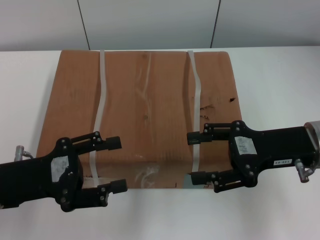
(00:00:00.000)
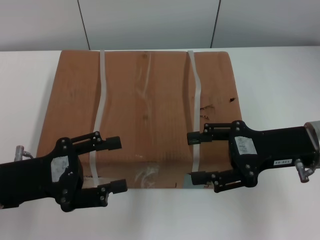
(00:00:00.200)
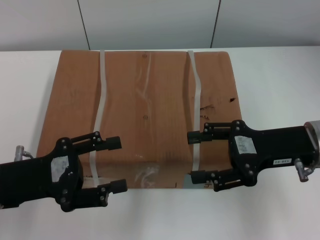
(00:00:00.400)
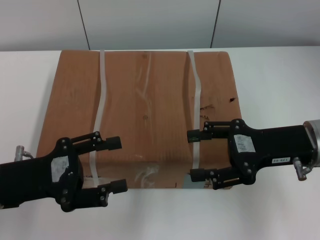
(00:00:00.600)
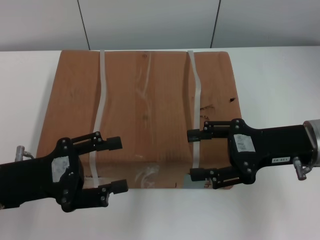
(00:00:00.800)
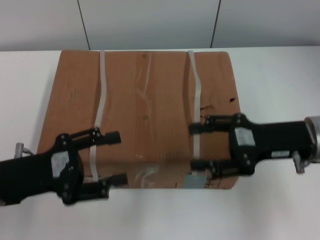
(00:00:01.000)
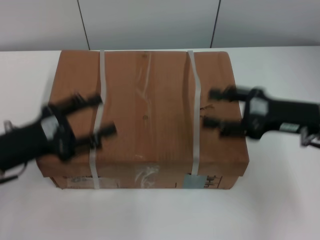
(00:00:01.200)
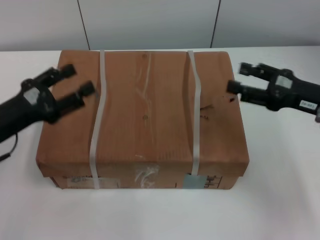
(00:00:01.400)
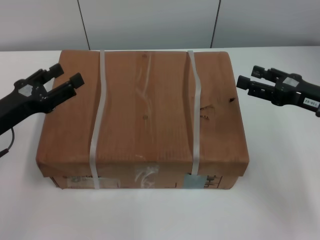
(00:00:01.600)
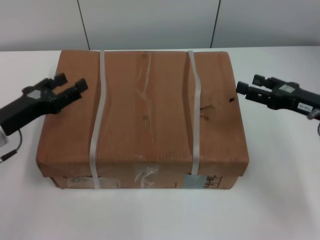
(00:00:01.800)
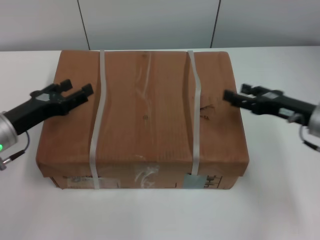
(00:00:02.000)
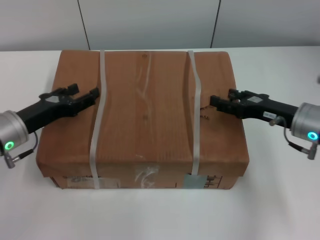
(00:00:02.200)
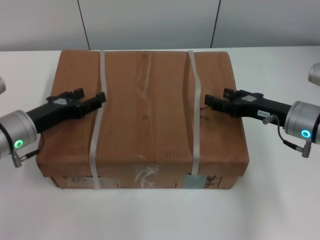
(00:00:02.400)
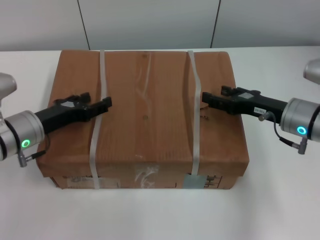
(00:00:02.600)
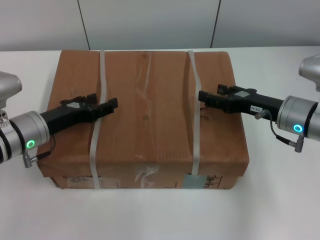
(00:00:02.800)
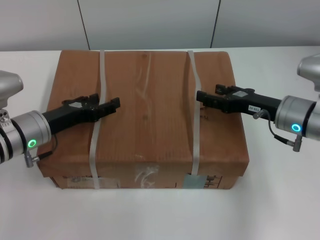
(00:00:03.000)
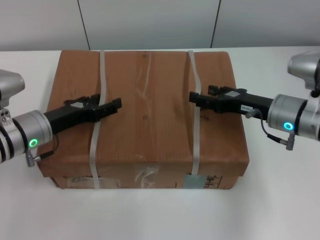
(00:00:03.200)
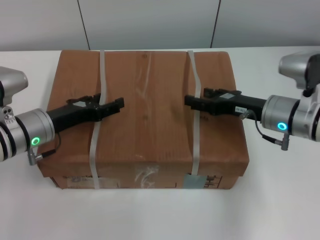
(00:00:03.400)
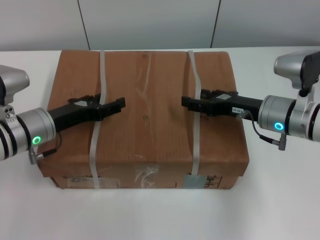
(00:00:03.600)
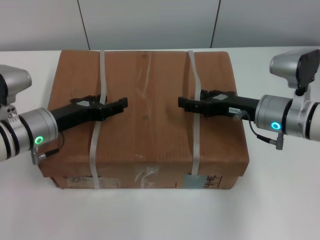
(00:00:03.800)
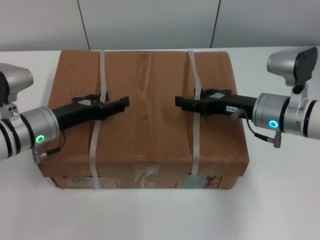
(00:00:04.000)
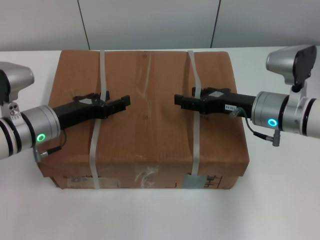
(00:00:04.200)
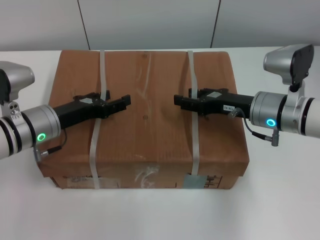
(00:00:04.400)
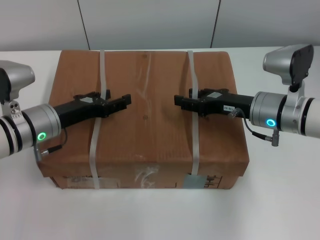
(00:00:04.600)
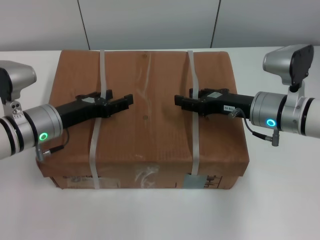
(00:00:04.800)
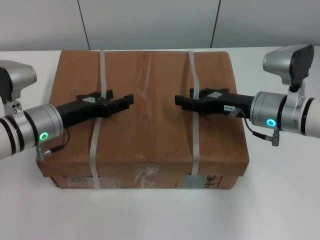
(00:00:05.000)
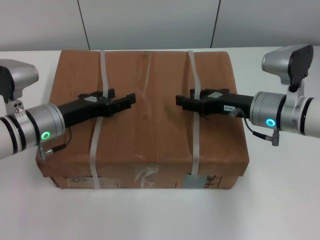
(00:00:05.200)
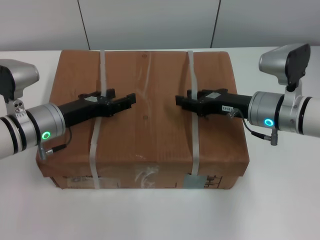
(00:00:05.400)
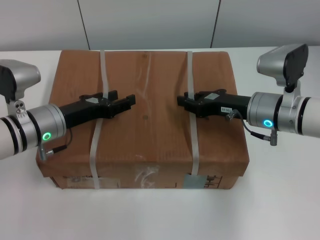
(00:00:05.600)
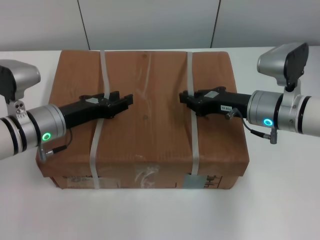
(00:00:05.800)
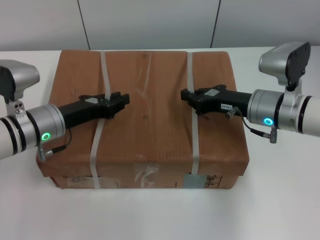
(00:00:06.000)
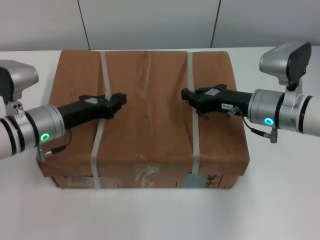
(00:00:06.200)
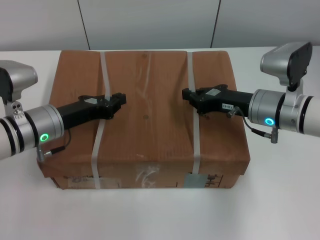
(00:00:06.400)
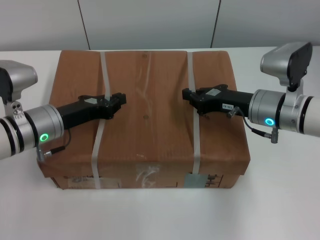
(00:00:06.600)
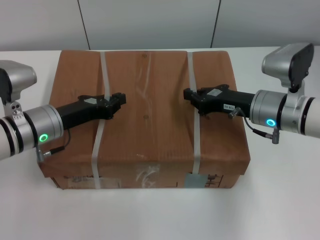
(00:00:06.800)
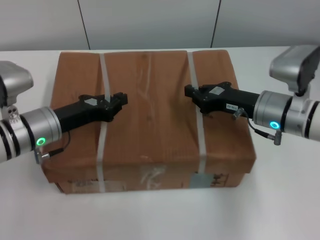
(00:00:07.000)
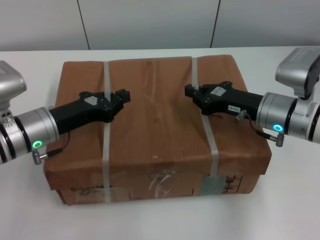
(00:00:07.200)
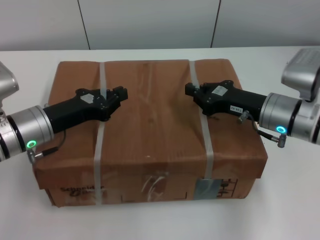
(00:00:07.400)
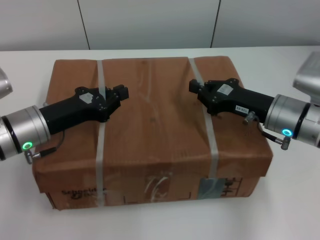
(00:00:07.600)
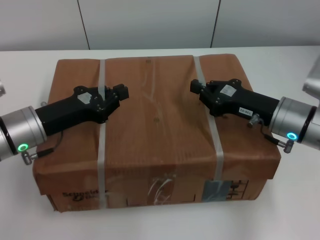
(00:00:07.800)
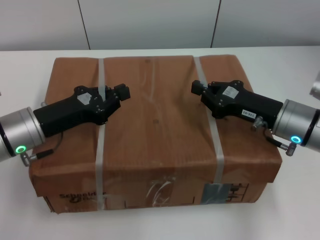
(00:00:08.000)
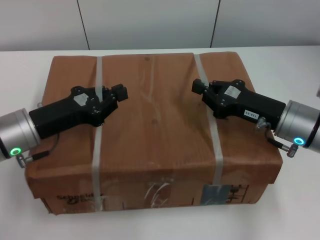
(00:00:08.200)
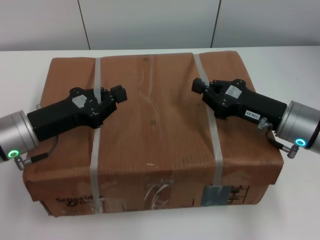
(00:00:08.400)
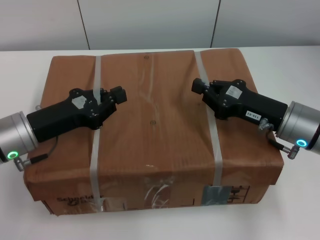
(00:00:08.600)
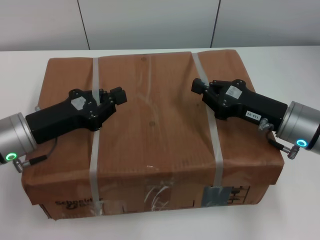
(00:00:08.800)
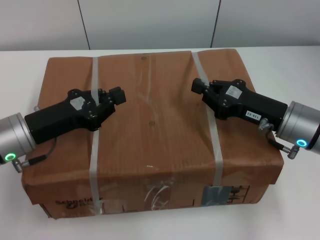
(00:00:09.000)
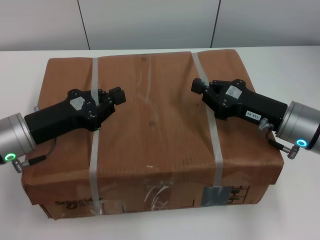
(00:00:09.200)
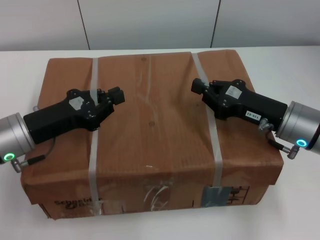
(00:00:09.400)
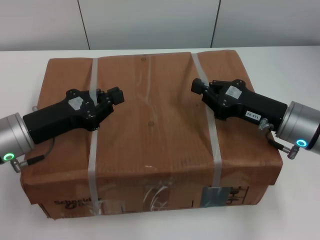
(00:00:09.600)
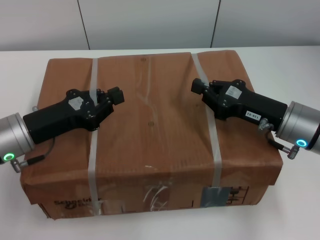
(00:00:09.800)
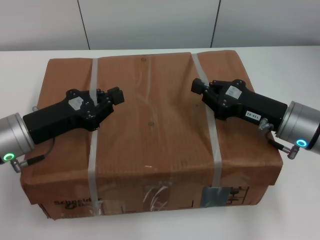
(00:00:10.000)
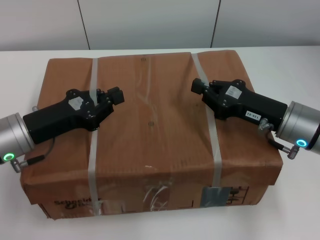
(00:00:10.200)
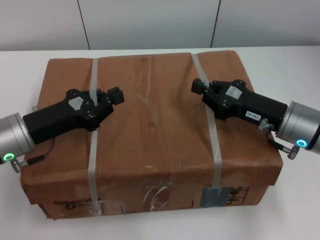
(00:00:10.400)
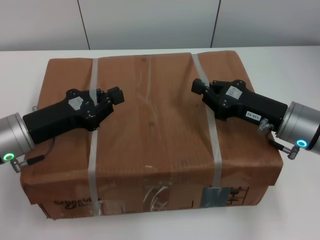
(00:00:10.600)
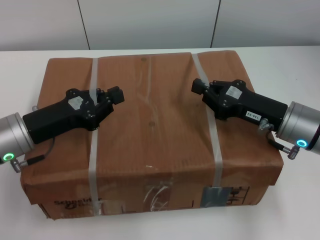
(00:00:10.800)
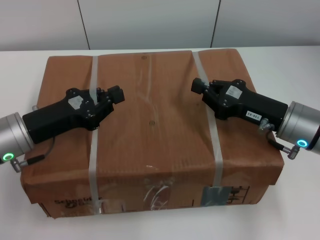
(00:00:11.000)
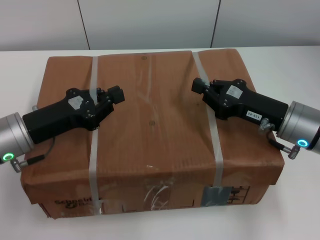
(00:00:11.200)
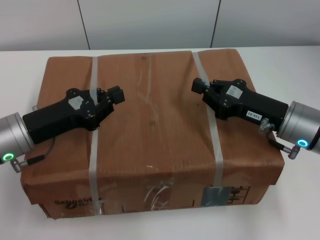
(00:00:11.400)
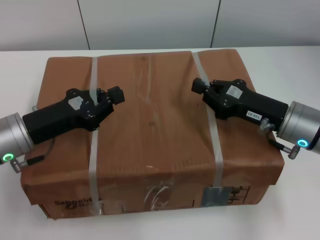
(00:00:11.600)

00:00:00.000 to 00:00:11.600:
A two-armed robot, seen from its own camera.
Task of the whole recording: pick up the box from the table with both arms.
Step, 00:00:00.000 to 00:00:06.400: Grasp the bandage with left gripper.
Step, 00:00:00.000 to 00:00:06.400: Grasp the bandage with right gripper.
Step, 00:00:06.600 to 00:00:08.600: Lift the box with left gripper.
Step, 00:00:06.600 to 00:00:08.600: Lift the box with right gripper.
00:00:00.000 to 00:00:01.400: The right gripper goes roughly 5 cm to the right.
00:00:01.400 to 00:00:02.800: The right gripper heads to the left and downward, covering about 5 cm. The left gripper moves forward, about 5 cm.
00:00:02.800 to 00:00:04.400: The grippers stay close to where they were, moving slightly.
00:00:04.400 to 00:00:05.800: The right gripper closes.
00:00:05.800 to 00:00:07.200: The left gripper closes its fingers.
00:00:08.800 to 00:00:11.600: Neither gripper changes place.
